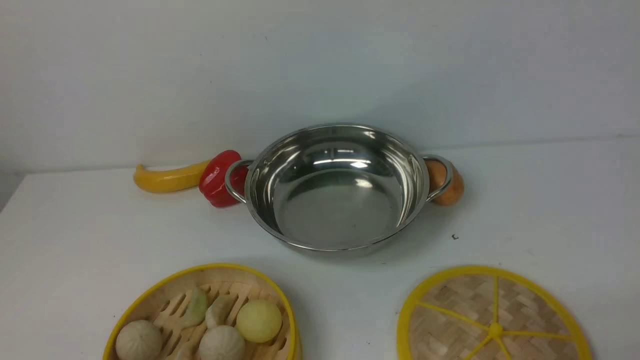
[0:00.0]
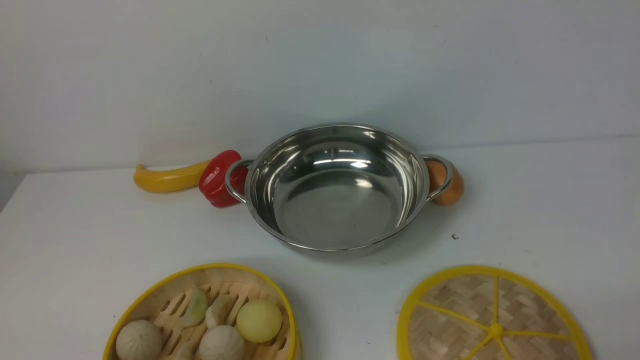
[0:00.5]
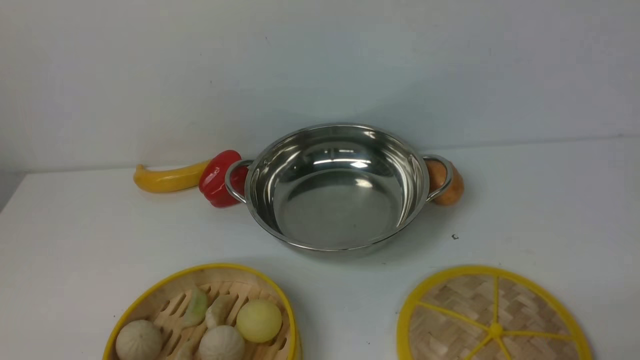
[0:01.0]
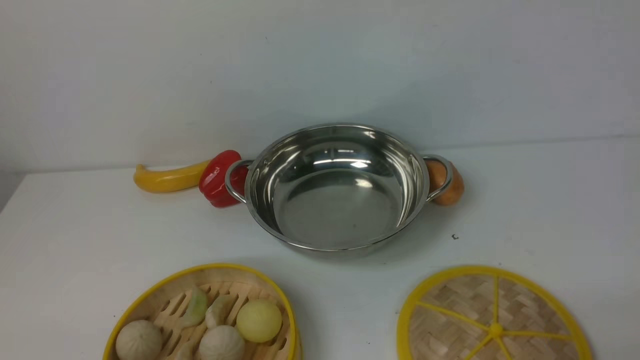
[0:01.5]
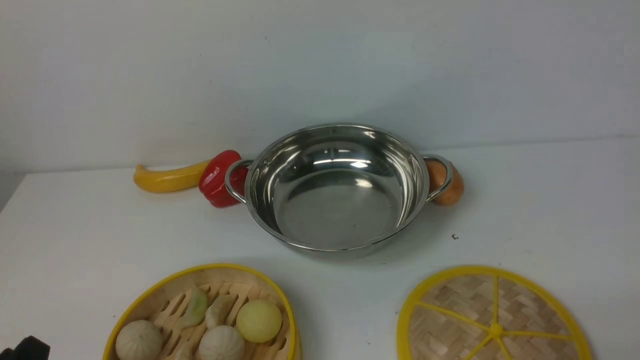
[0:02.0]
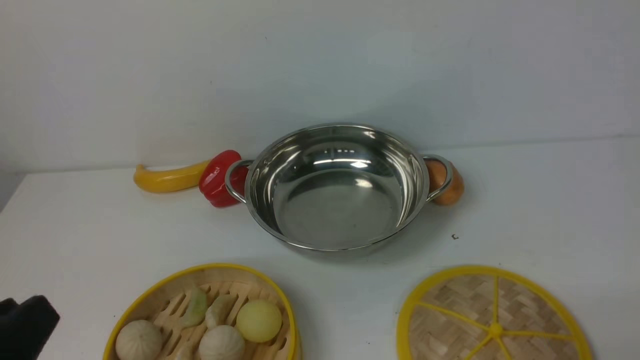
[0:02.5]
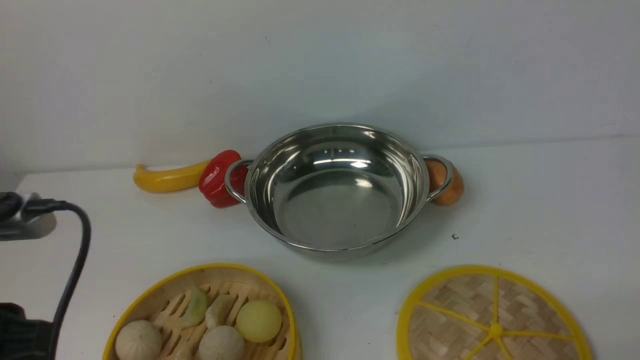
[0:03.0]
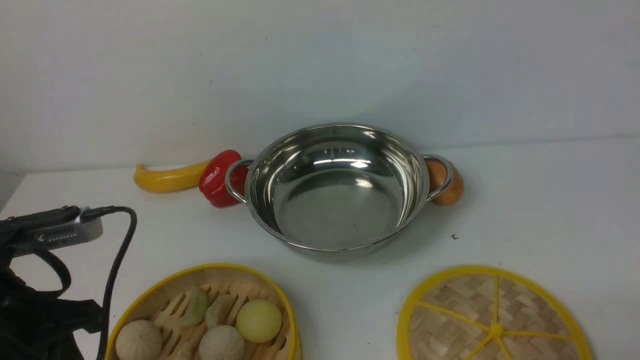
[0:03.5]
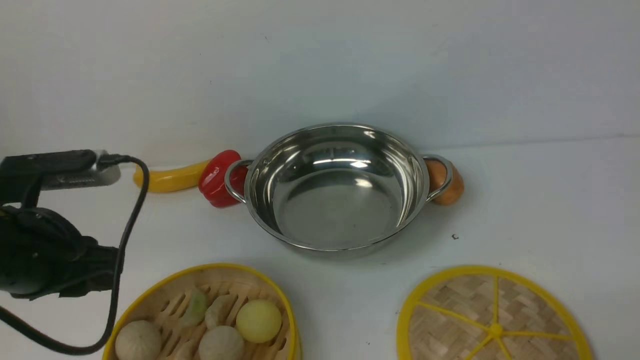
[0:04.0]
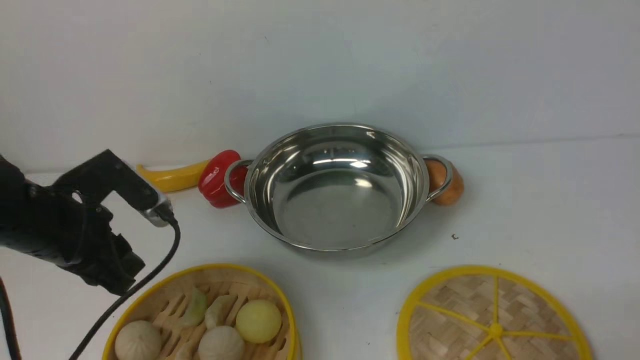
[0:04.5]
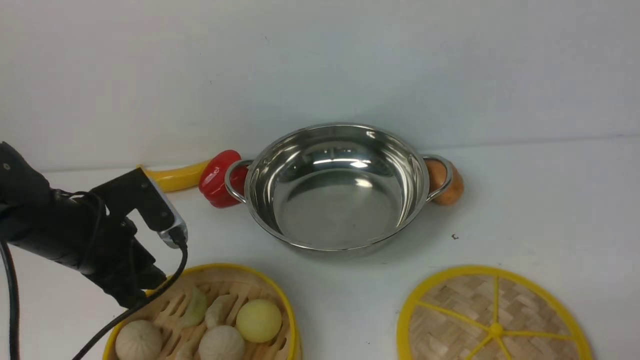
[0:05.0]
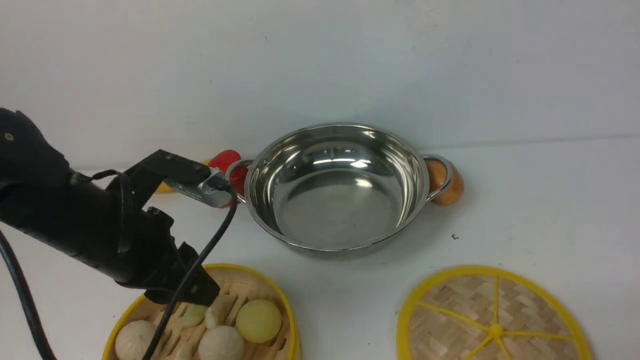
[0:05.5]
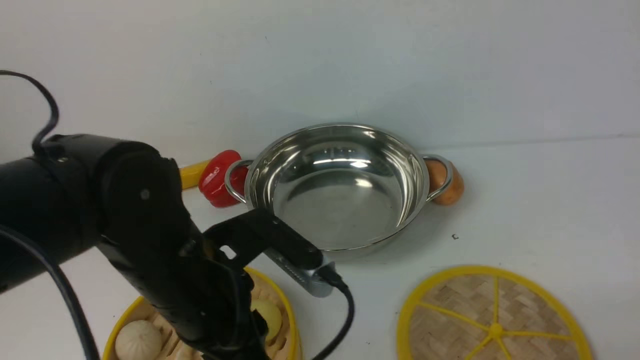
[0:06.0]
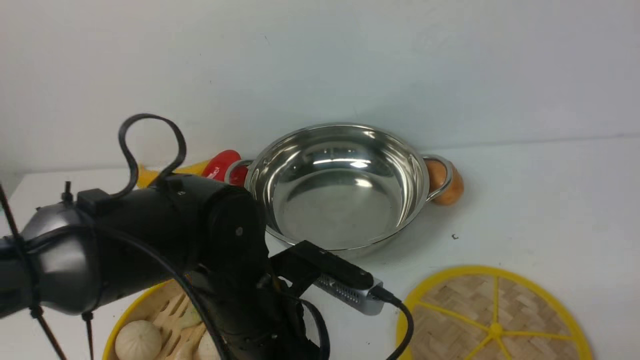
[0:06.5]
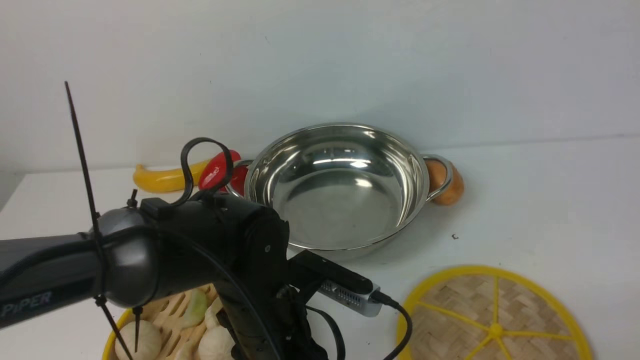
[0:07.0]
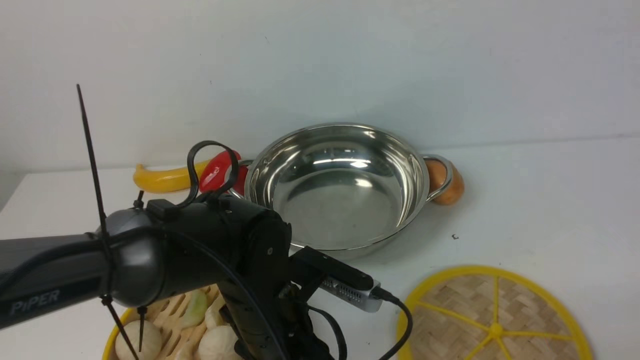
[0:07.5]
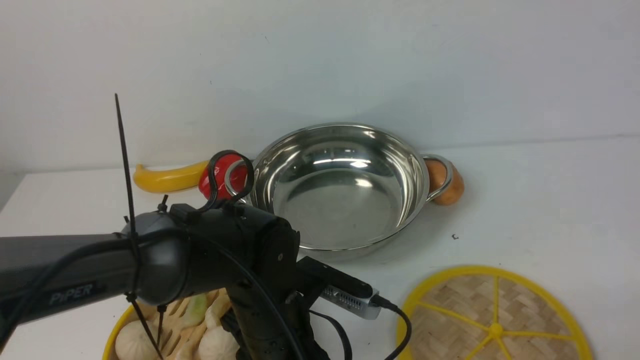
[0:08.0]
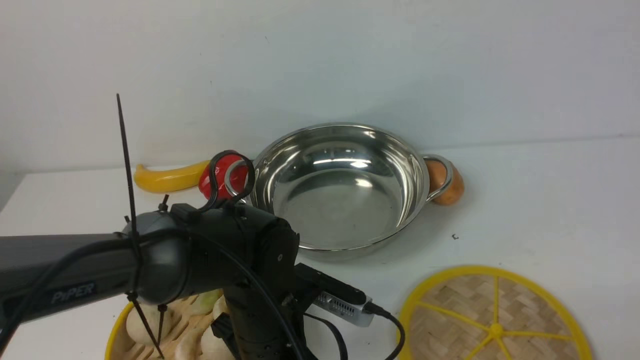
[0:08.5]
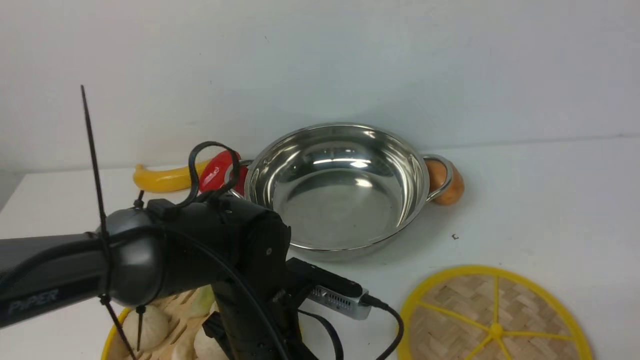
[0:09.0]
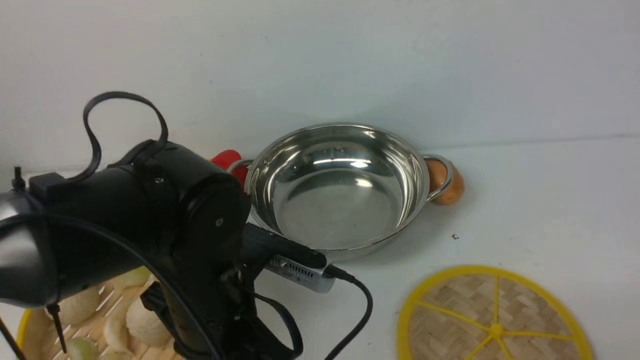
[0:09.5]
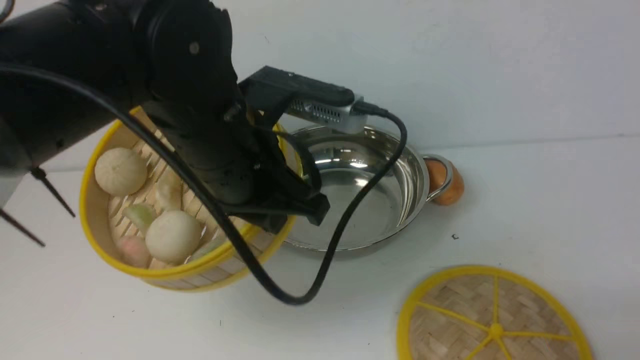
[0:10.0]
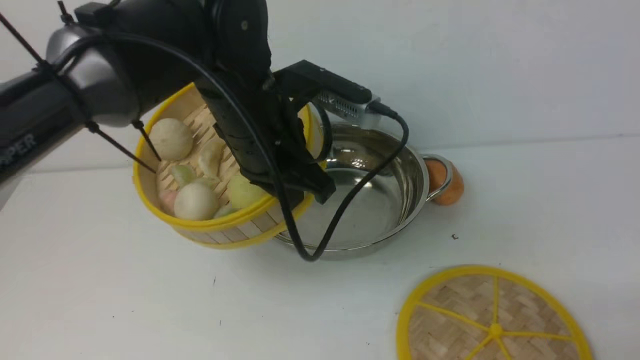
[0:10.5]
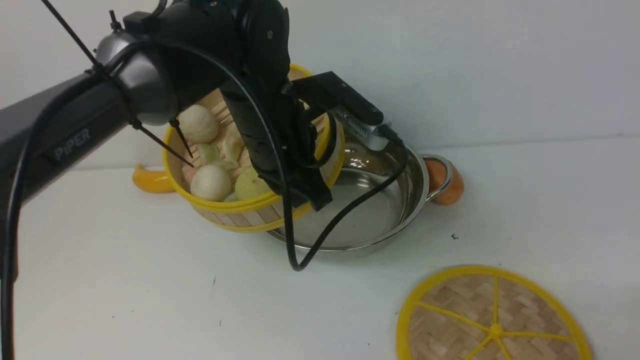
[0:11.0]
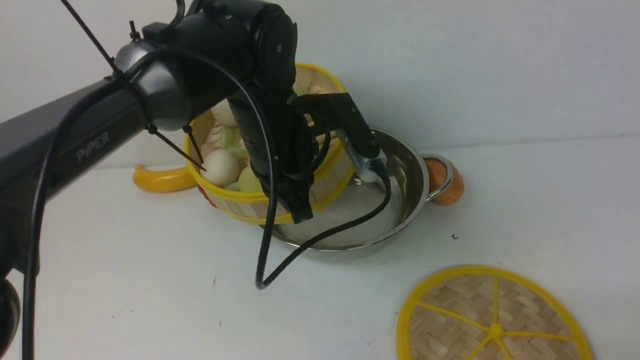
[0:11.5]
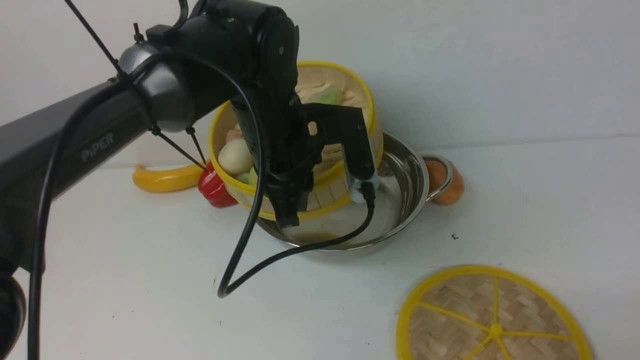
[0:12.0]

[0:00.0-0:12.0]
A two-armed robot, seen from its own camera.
Task of the whole recording: place the steamer in the pot on the white table, and put the lid on the steamer.
Step, 0:00.0 to 0:09.0: use the left arm to lift the steamer closest to it.
0:02.0 to 0:04.0: The left gripper is displaced forward by some 20 cm.
0:04.0 to 0:06.0: The left gripper shifts approximately 15 cm to the right.
0:06.0 to 0:08.0: The left gripper is displaced downward by some 10 cm.
0:08.0 to 0:10.0: The left gripper moves upward, about 15 cm, and closes.
0:10.0 to 0:12.0: The left gripper goes roughly 10 cm forward and downward.

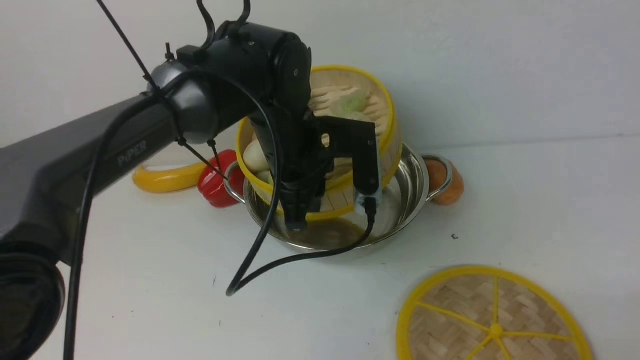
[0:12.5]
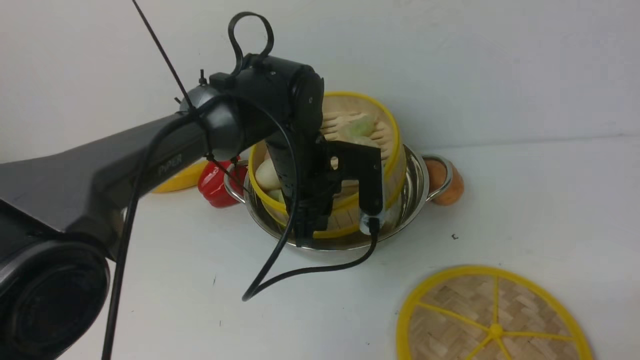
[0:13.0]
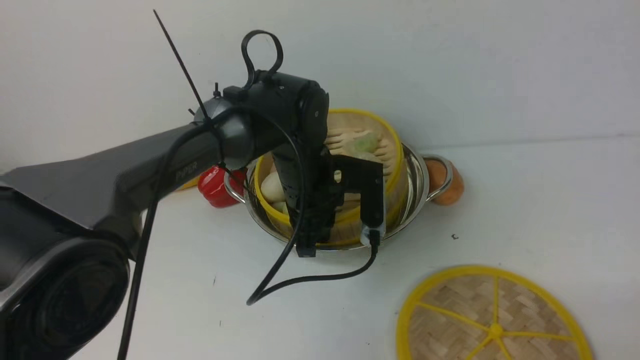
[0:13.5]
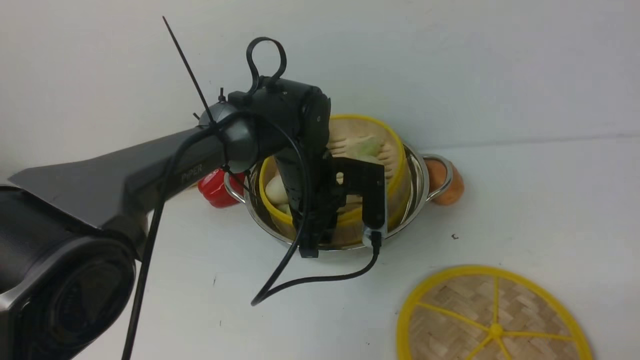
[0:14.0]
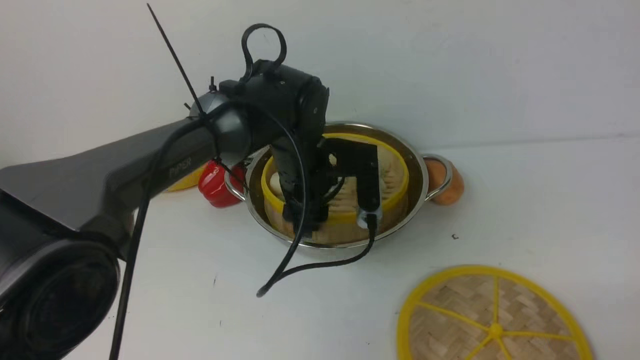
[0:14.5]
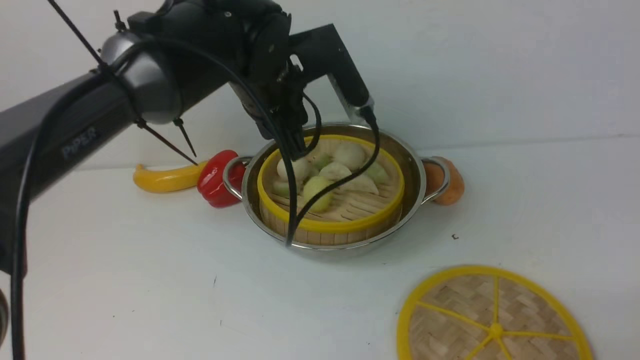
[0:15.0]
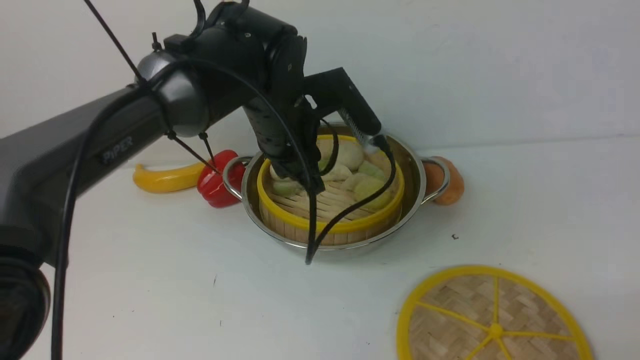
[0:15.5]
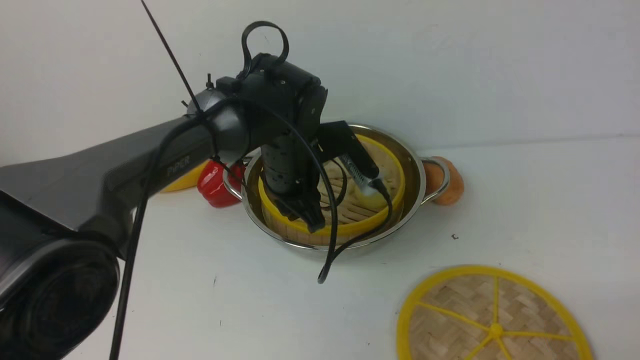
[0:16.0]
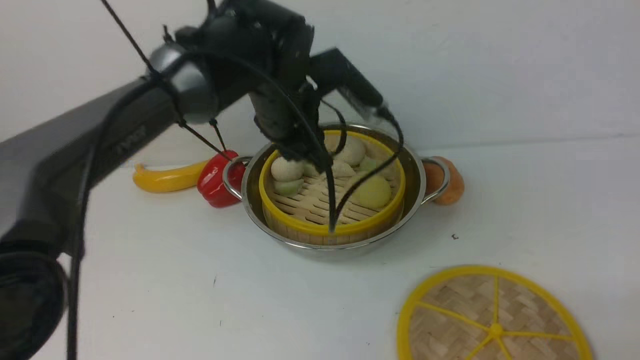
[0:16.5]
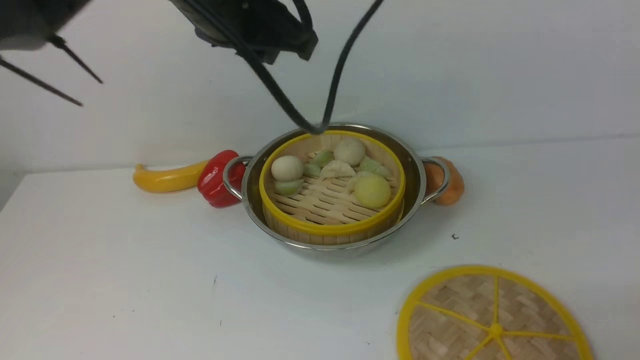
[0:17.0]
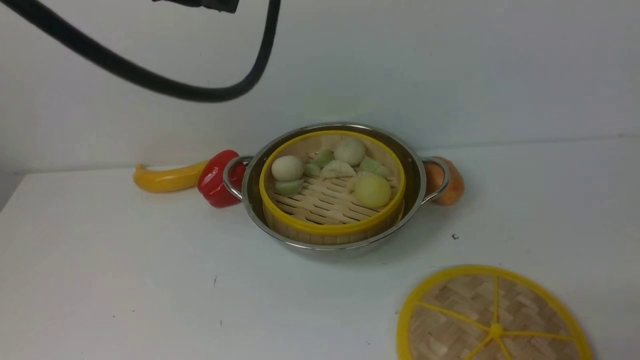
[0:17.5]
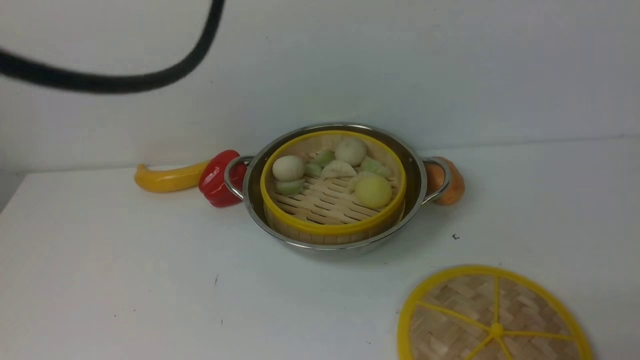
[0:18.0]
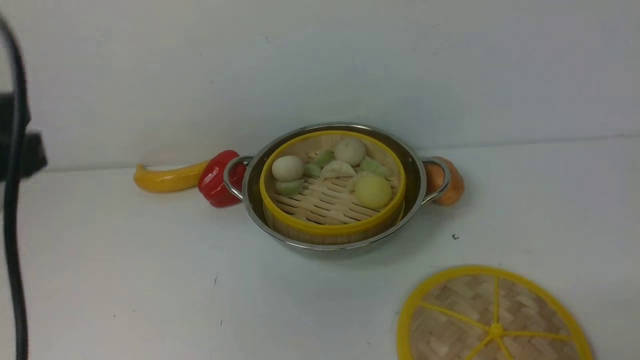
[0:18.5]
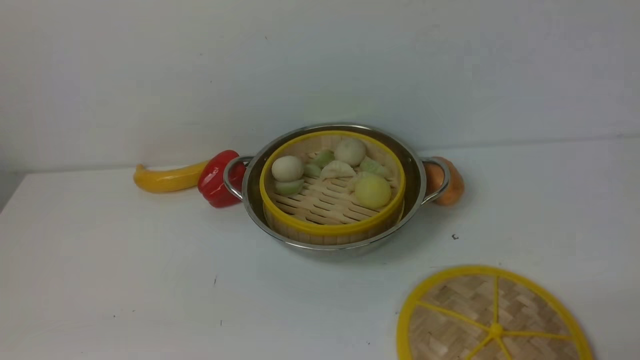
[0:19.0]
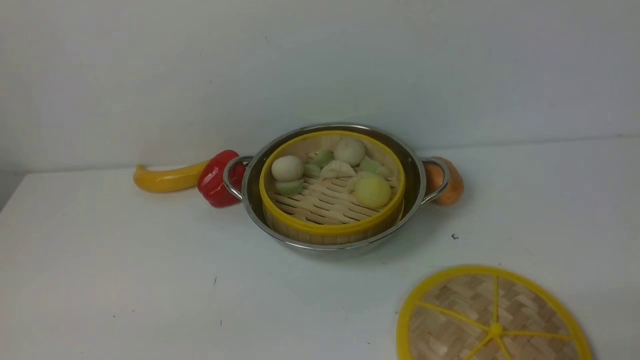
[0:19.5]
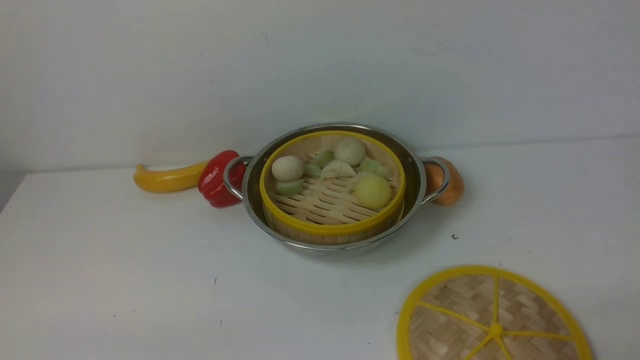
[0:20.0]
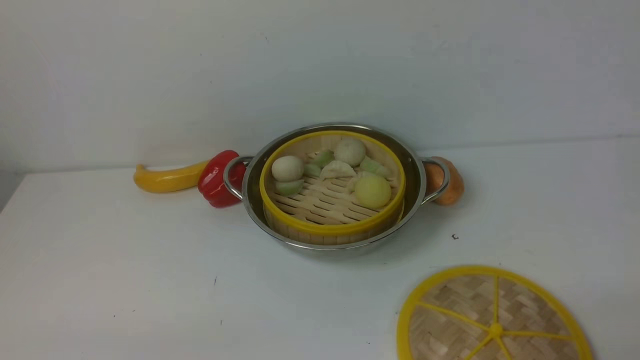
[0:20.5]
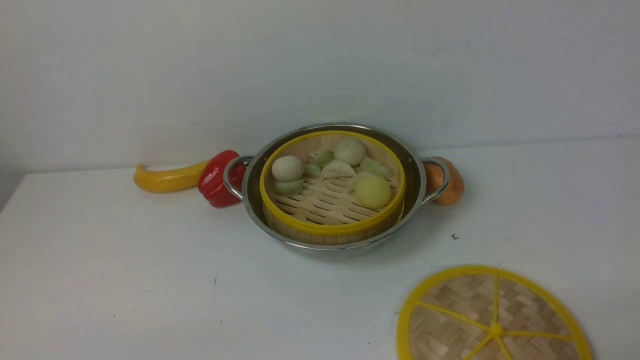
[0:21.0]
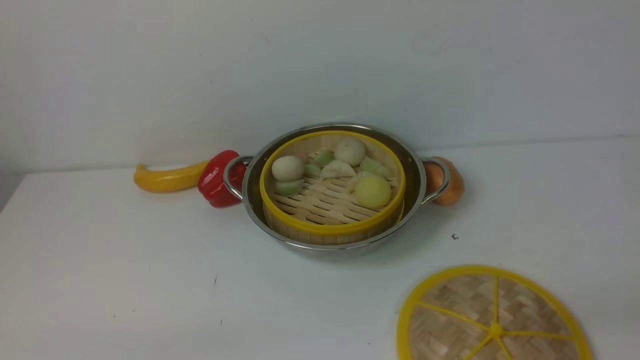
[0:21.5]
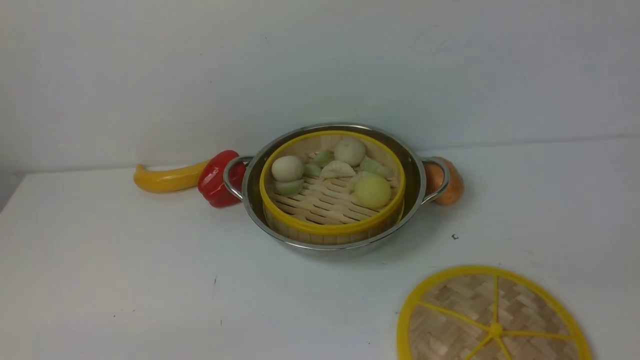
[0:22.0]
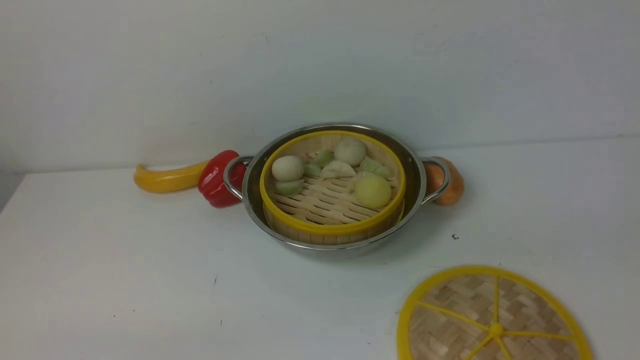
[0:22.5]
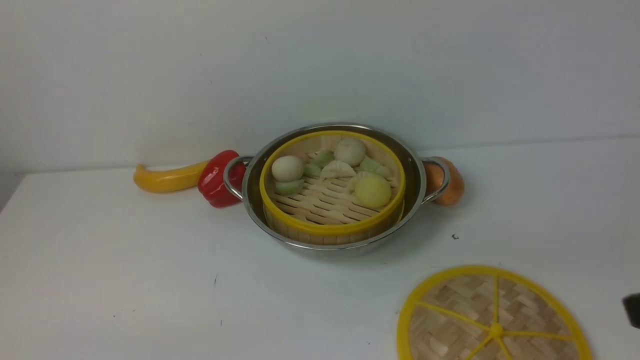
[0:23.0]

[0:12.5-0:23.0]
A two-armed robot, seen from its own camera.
Task of the whole recording: place the steamer in the pot on the white table, and put the lid on the steamer.
Step, 0:12.5 to 0:16.5: use the left arm to put the steamer into the iron steamer pot in the middle.
0:12.5 to 0:14.5: The left gripper opens its fingers.
0:14.5 to 0:16.5: The left gripper swings up and down, approximately 10 cm each way, with 2 reversals.
0:16.5 to 0:19.0: The left gripper goes some 40 cm backward and to the left, and closes up.
